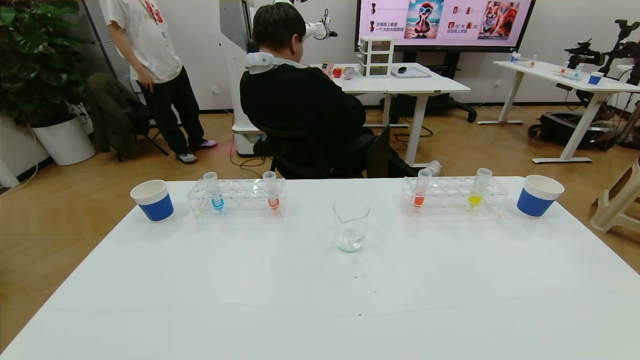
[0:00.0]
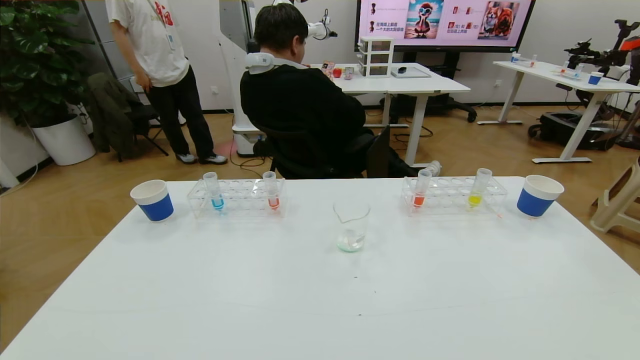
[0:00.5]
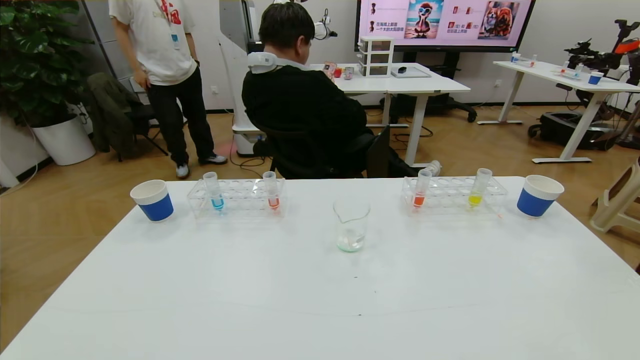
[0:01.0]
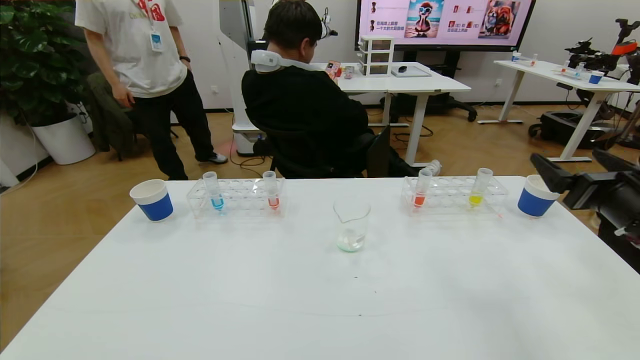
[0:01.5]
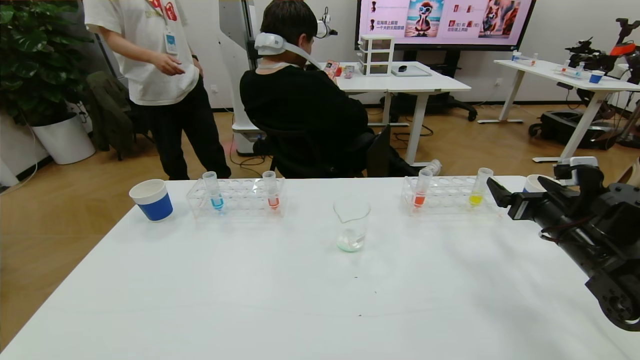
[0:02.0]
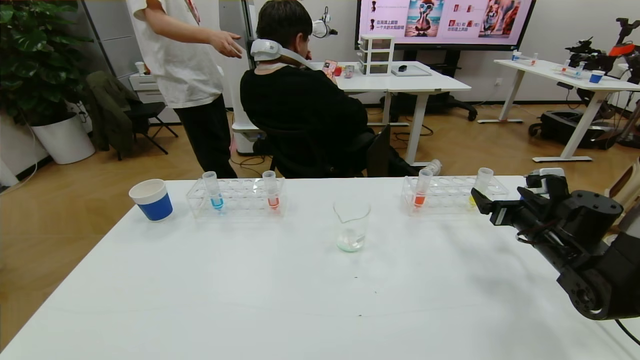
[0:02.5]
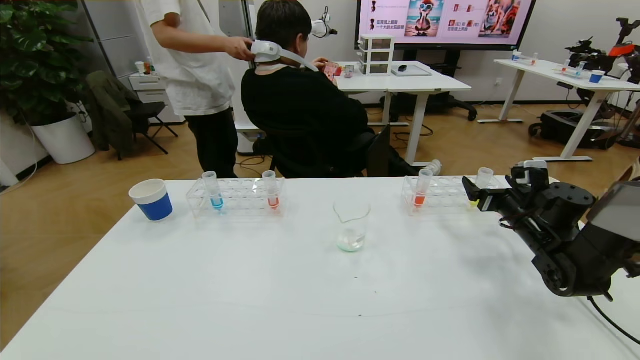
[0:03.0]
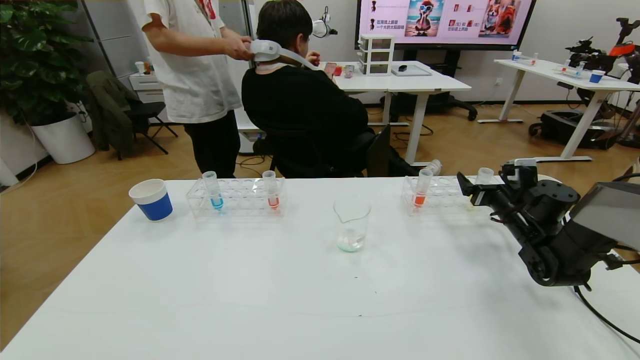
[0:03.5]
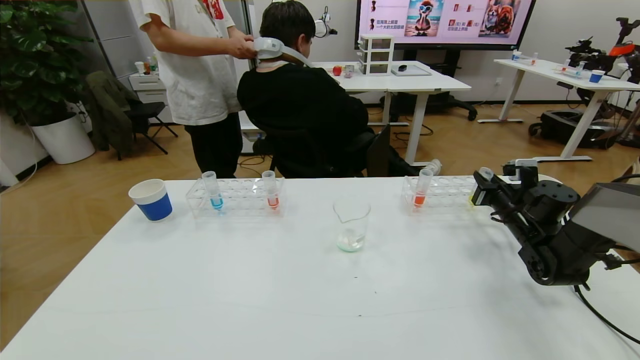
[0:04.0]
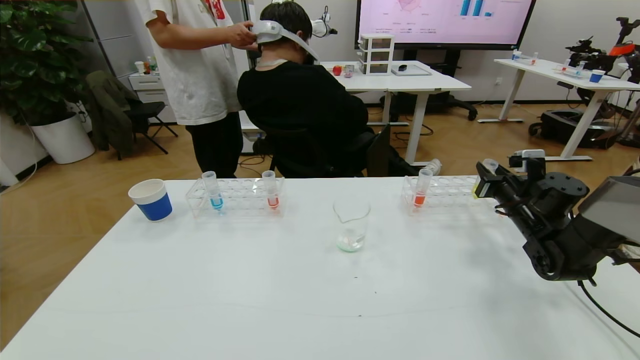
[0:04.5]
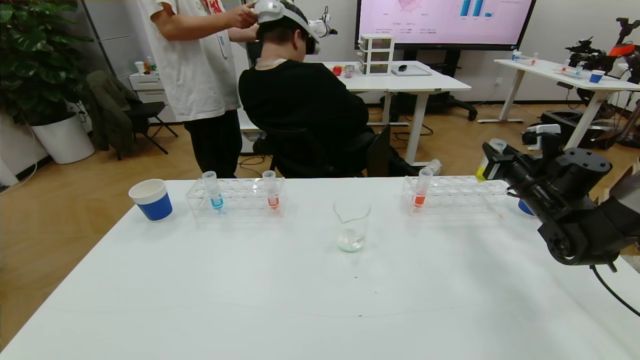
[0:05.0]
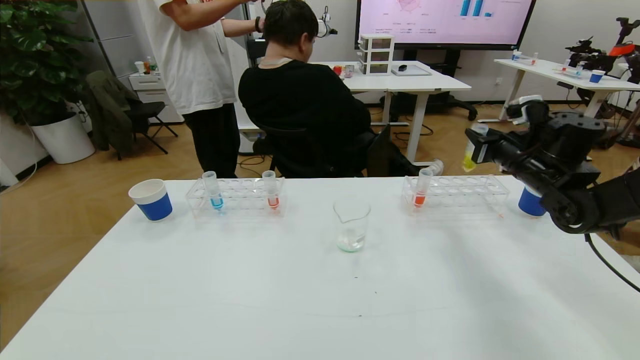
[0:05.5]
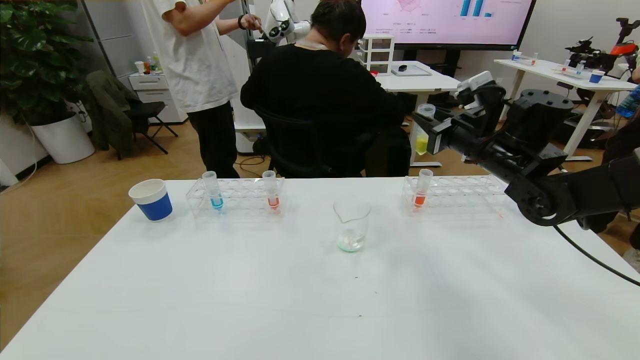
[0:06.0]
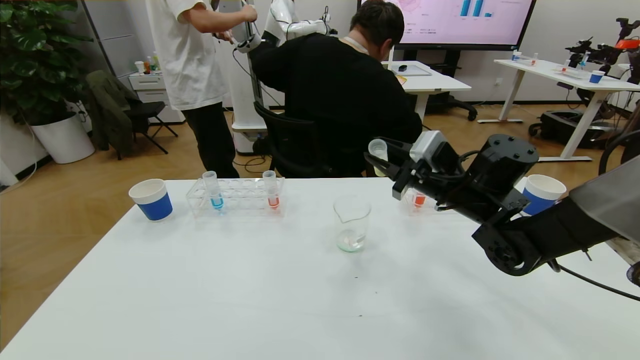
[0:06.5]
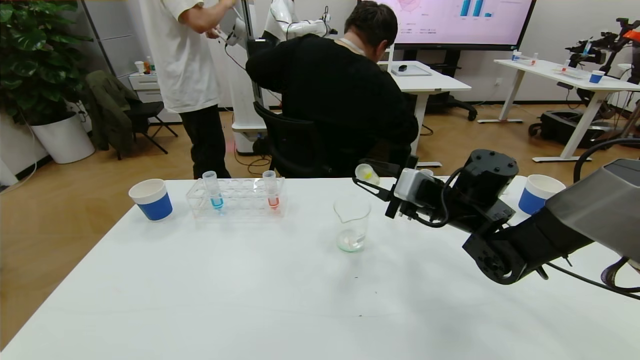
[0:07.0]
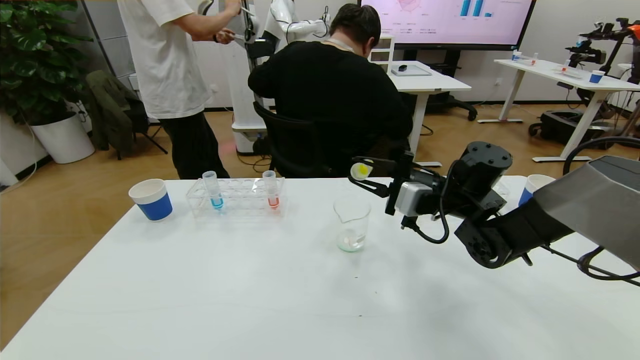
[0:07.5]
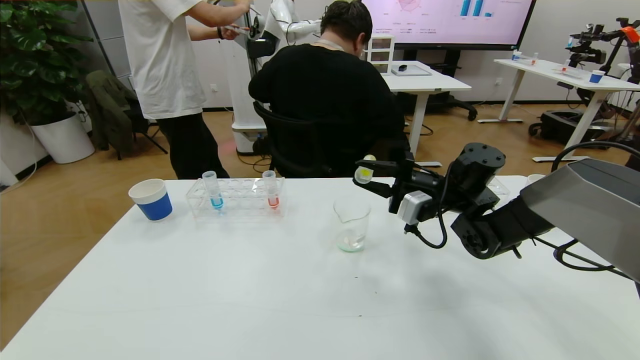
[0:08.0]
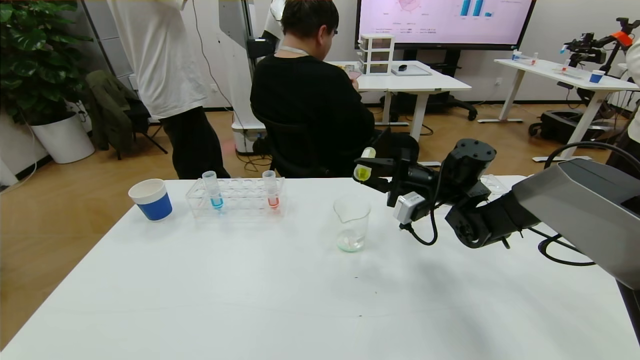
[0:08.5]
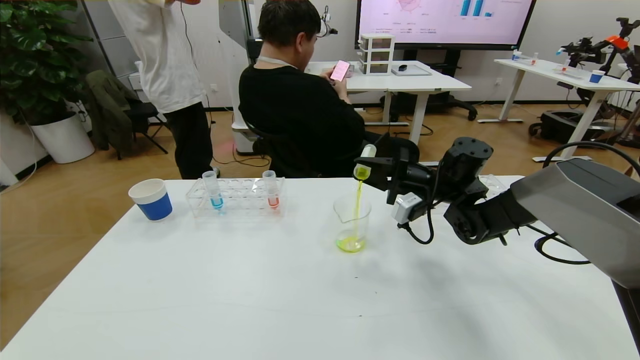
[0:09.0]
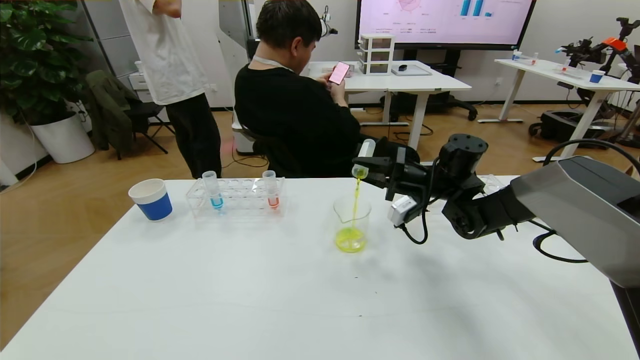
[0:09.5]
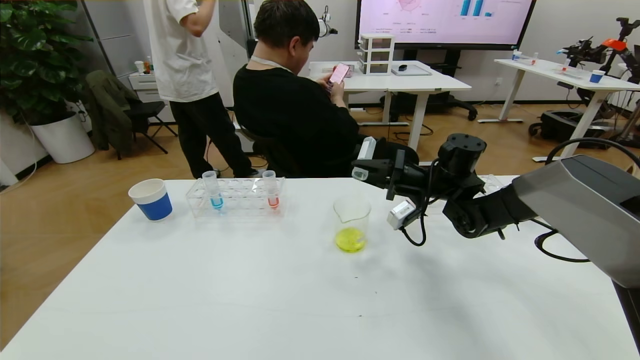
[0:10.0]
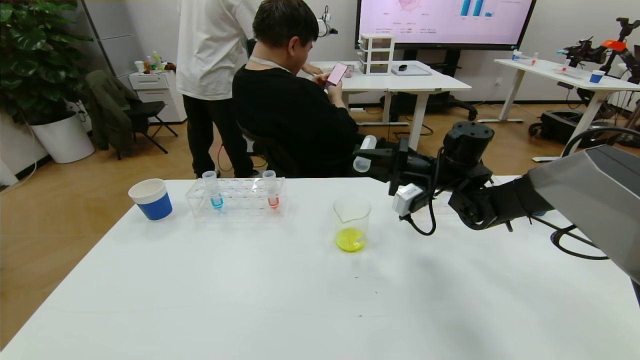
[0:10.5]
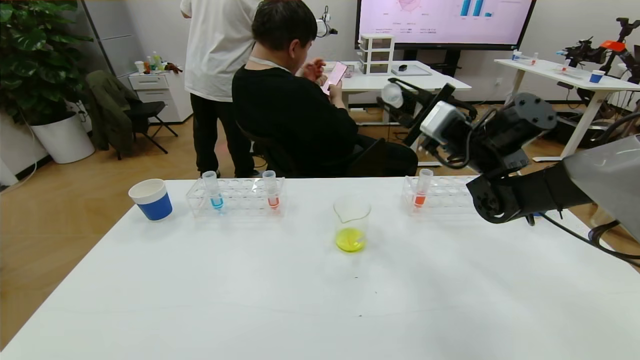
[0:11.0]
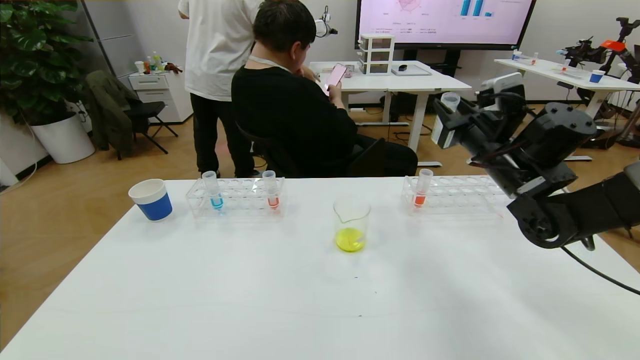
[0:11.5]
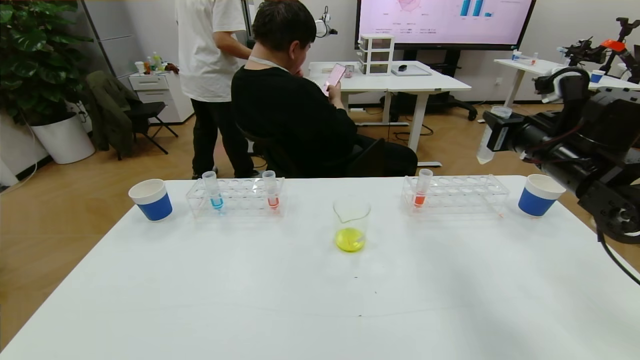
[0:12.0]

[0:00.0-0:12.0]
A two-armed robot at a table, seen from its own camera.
Task of the whole recording: pick up the test tube with yellow pigment and the test tube with blue pigment by grippers and pour them into the beaker.
0:00.0 to 0:02.0: The right gripper shifts some 35 cm forward.
0:02.0 to 0:04.0: The right gripper is displaced forward by roughly 10 cm, and closes.
0:04.0 to 0:06.0: The right gripper moves upward and to the left, approximately 20 cm.
0:06.0 to 0:08.0: The right gripper travels downward by roughly 10 cm.
0:10.0 to 0:12.0: The right gripper is displaced to the right, backward and upward by some 20 cm.

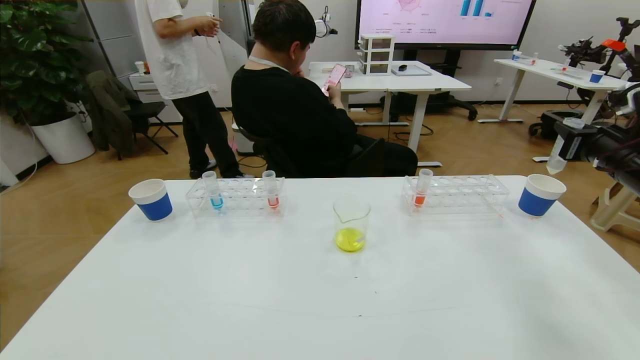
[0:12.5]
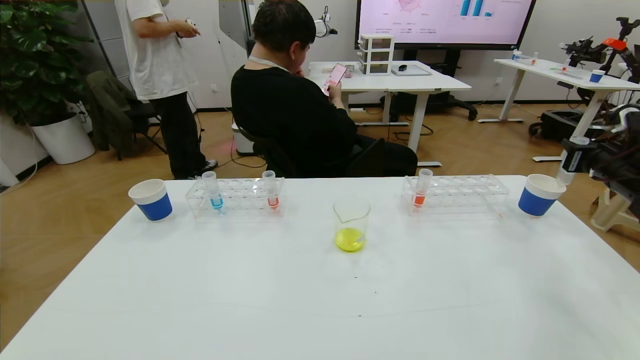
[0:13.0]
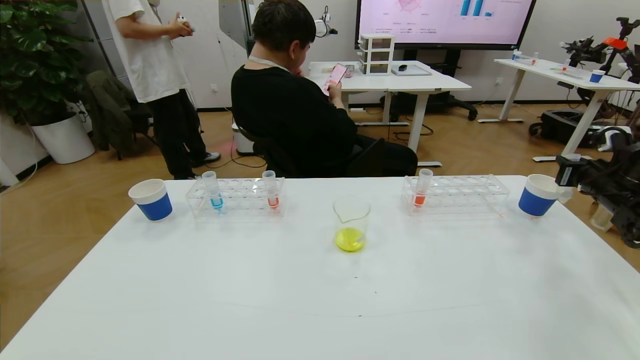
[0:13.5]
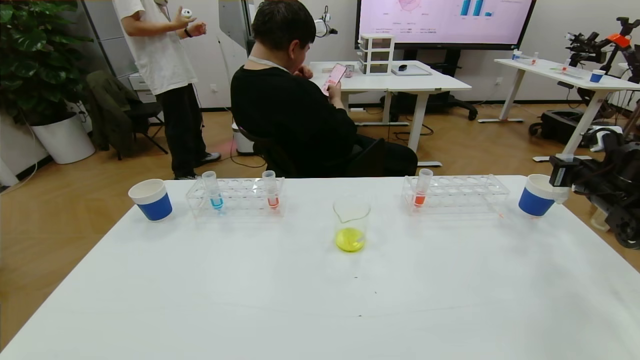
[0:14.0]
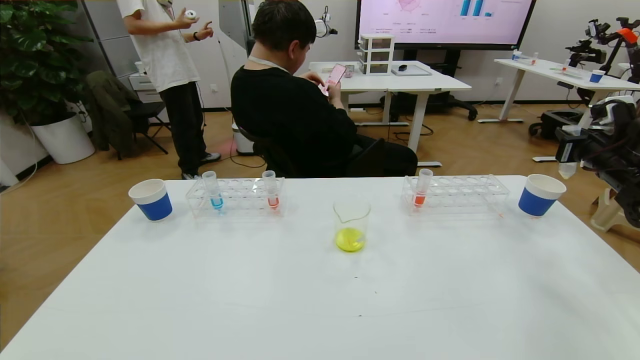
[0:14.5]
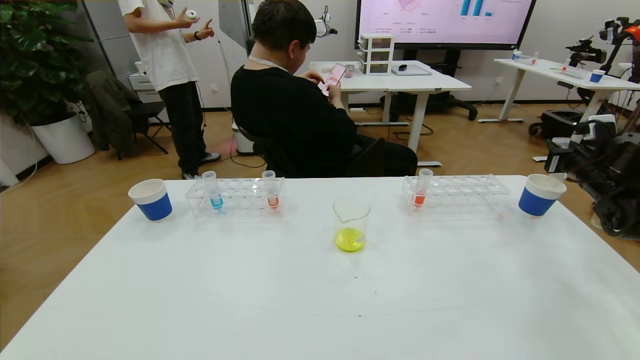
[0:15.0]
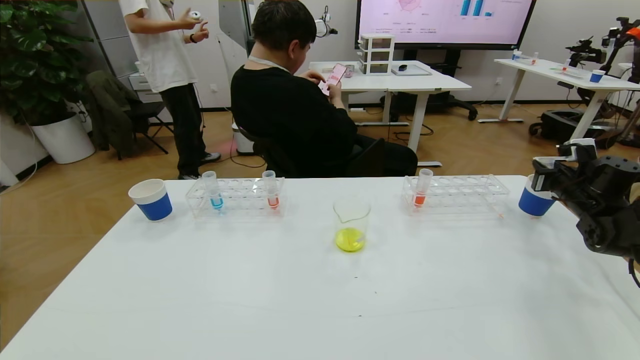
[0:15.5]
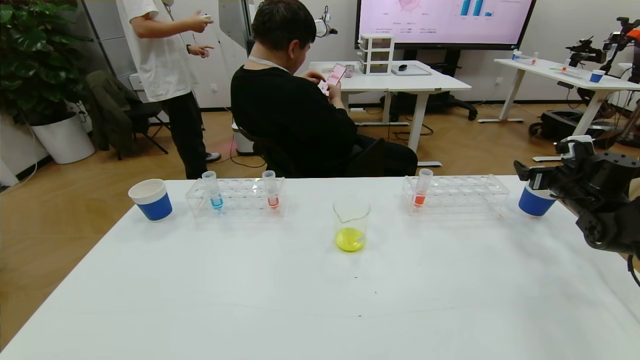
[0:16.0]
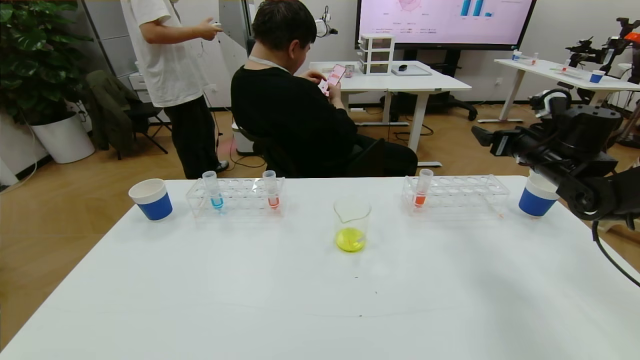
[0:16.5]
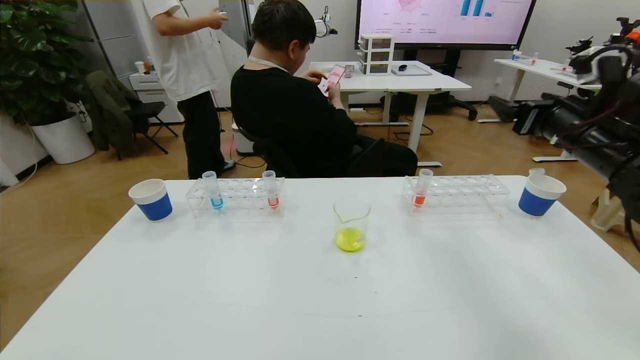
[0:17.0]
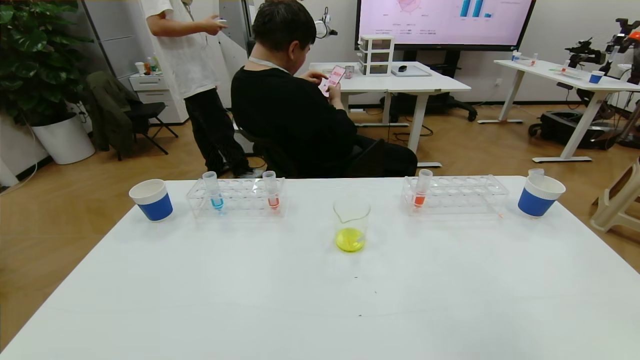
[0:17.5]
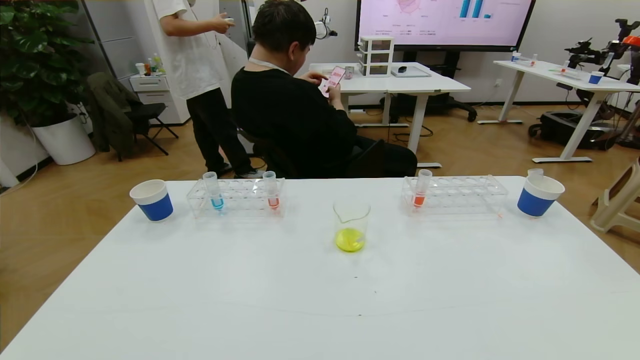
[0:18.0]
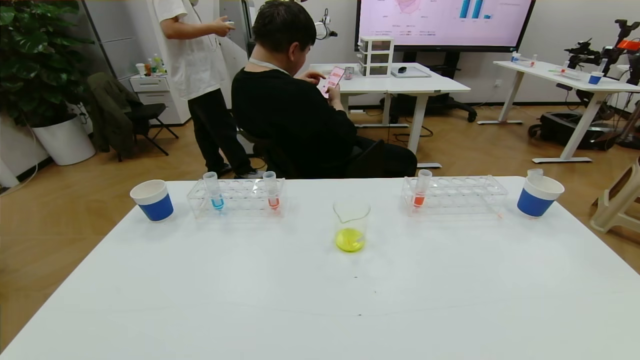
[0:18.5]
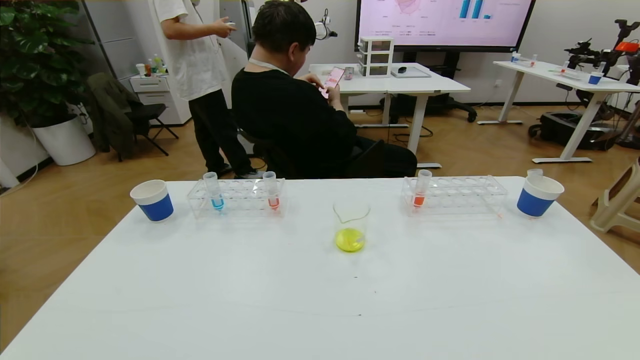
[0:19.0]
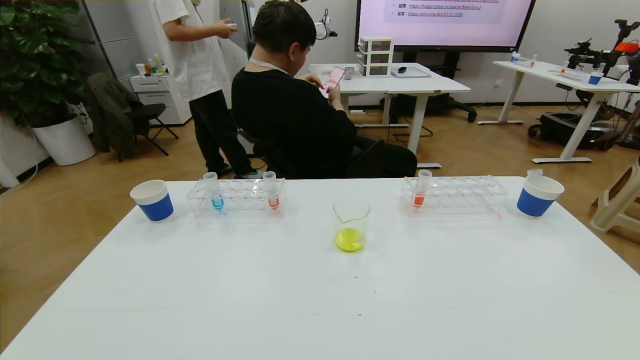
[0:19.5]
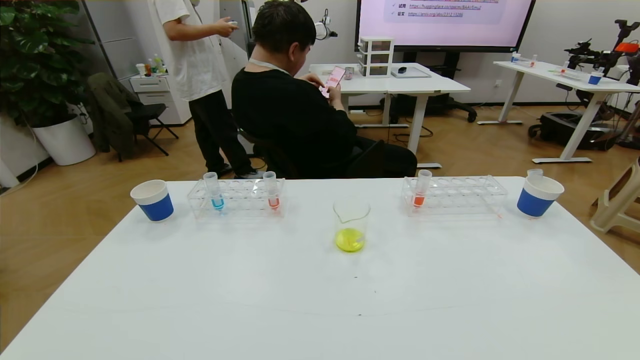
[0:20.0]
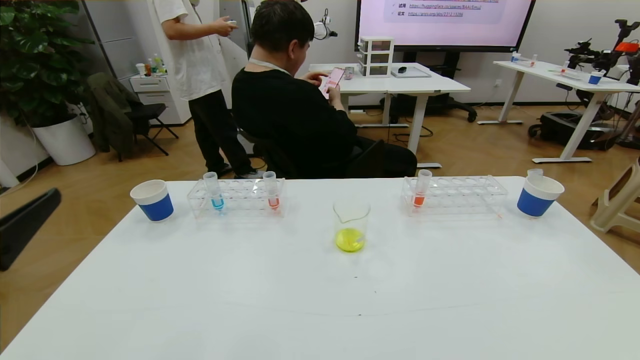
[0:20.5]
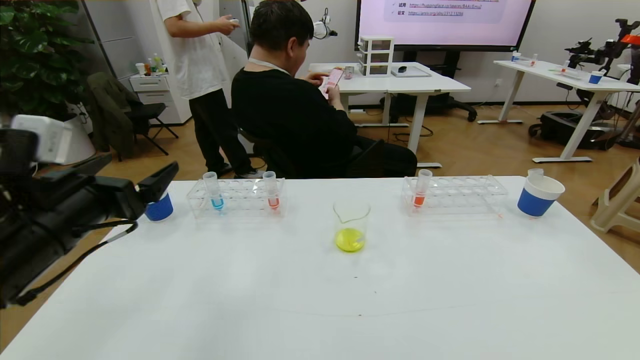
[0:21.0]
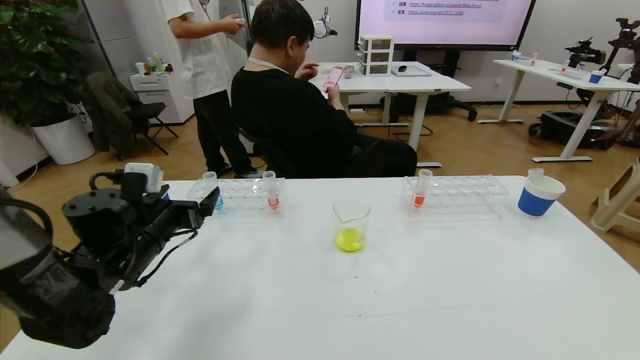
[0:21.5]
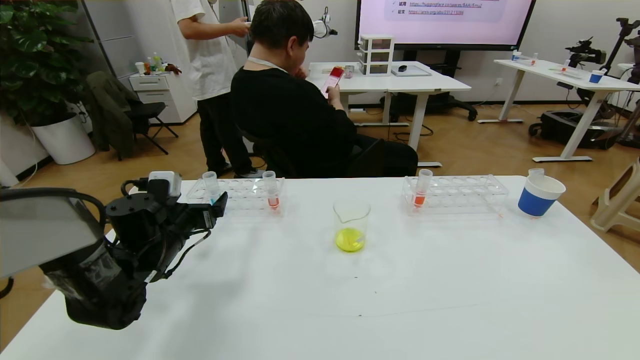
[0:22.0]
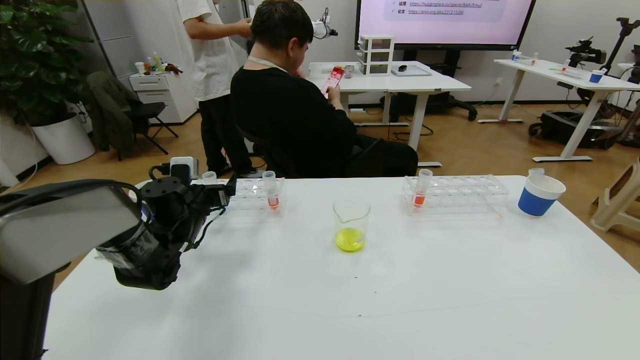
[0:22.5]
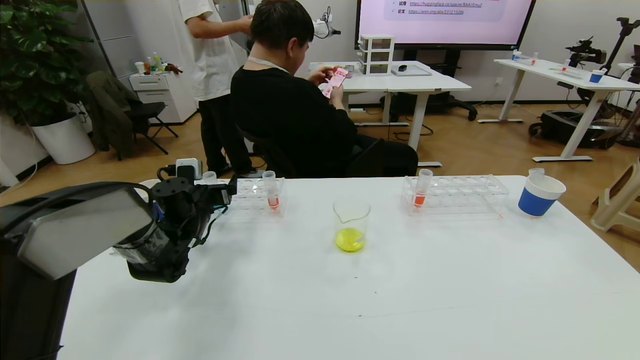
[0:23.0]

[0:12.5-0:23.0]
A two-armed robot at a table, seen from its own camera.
Task of the whole recording: pick up the test tube with yellow pigment and the test tube with blue pigment by grippers and pour them into the beaker.
Step, 0:12.5 to 0:18.0: Pour the yellow reagent into the graduated cylinder and place the test tube into the paper cup.
0:12.5 to 0:14.5: The right gripper is displaced forward by approximately 5 cm.
0:14.5 to 0:16.5: The right gripper is displaced to the left by some 10 cm, and opens its fingers.
0:16.5 to 0:19.0: The right gripper is displaced backward by approximately 40 cm.
0:19.0 to 0:21.0: The left gripper travels forward and upward by about 30 cm.
0:21.0 to 0:23.0: The left gripper is displaced forward and downward by roughly 25 cm.
